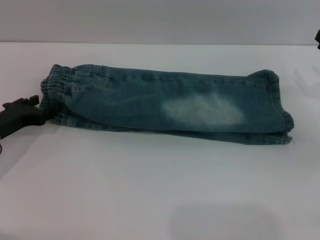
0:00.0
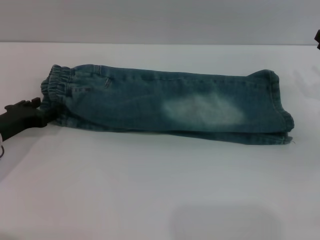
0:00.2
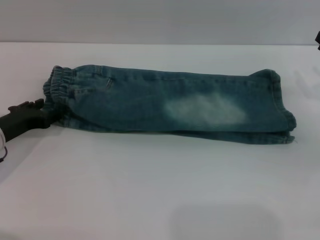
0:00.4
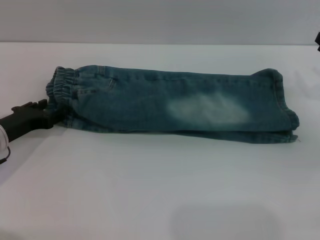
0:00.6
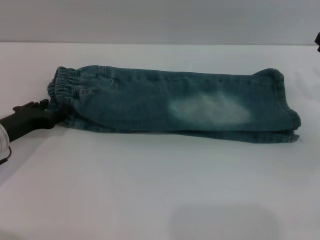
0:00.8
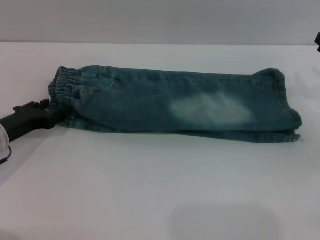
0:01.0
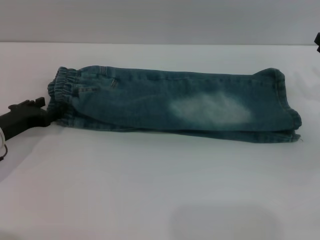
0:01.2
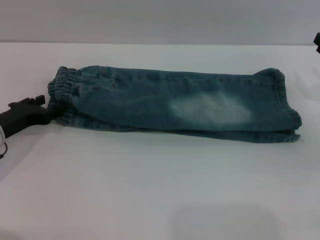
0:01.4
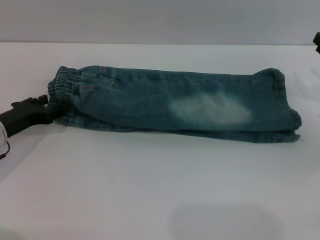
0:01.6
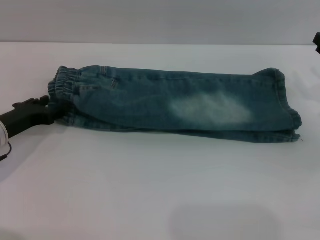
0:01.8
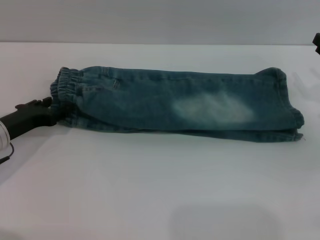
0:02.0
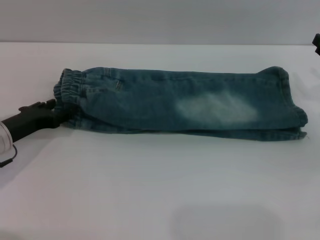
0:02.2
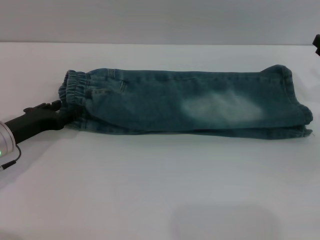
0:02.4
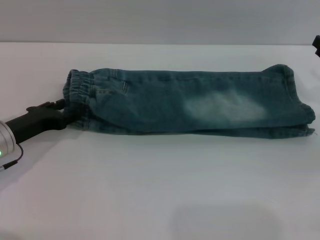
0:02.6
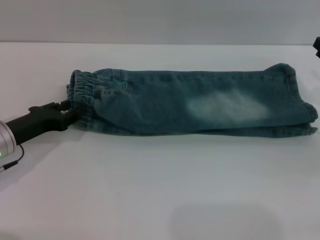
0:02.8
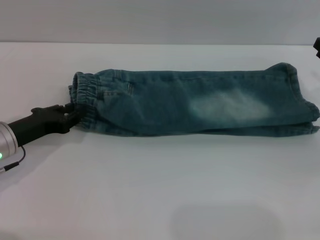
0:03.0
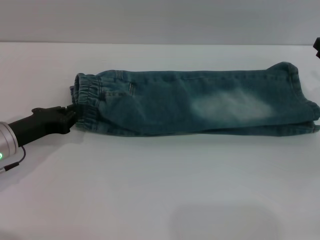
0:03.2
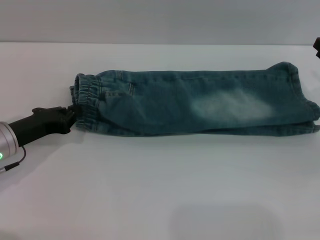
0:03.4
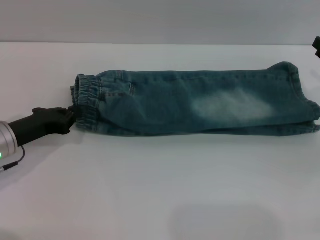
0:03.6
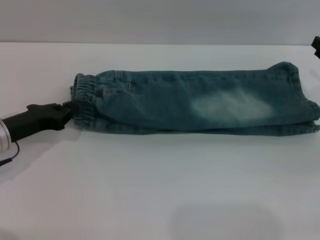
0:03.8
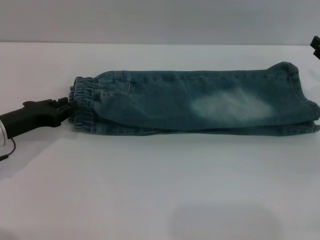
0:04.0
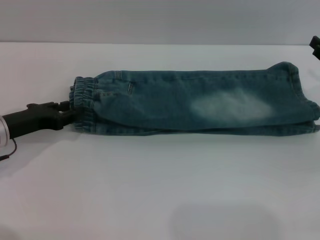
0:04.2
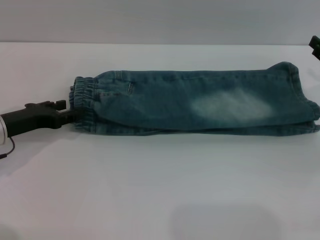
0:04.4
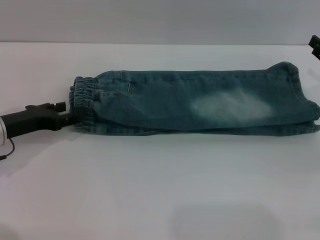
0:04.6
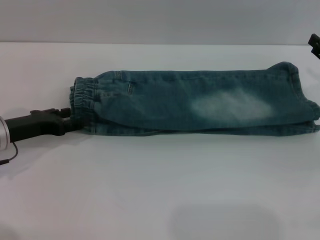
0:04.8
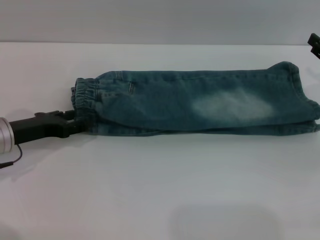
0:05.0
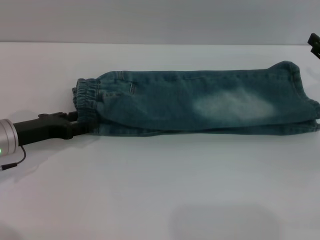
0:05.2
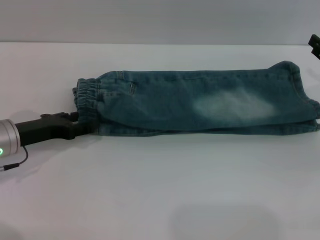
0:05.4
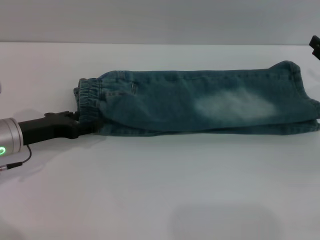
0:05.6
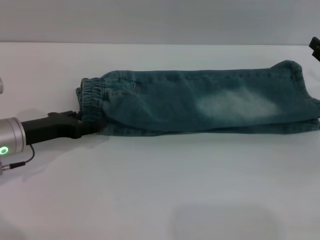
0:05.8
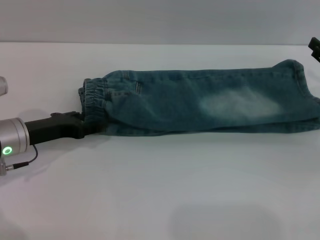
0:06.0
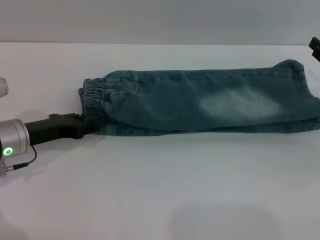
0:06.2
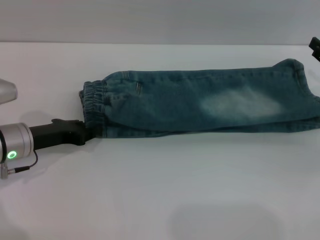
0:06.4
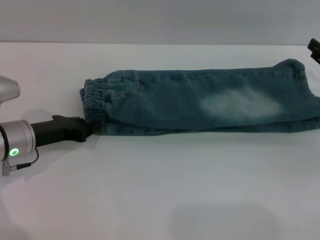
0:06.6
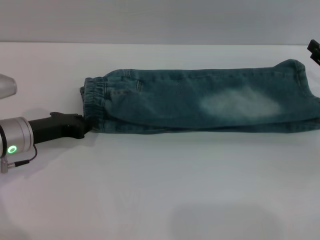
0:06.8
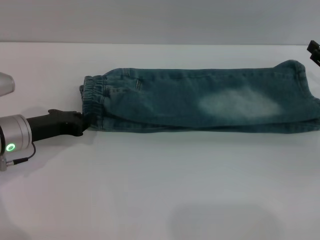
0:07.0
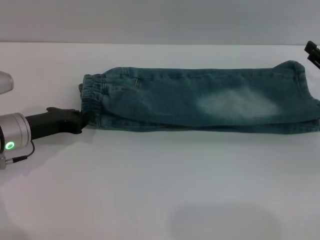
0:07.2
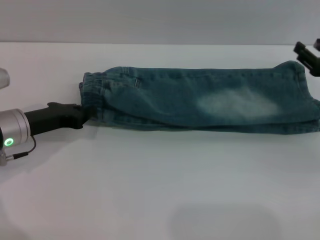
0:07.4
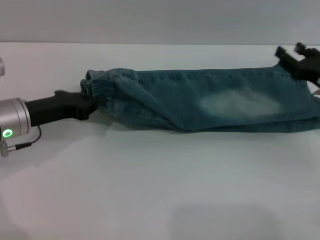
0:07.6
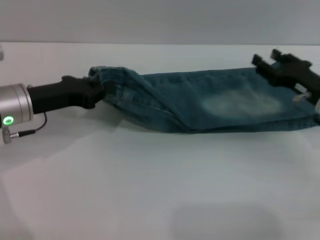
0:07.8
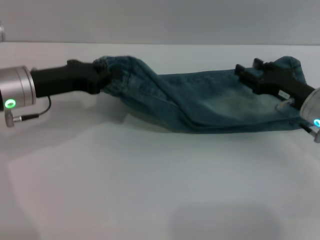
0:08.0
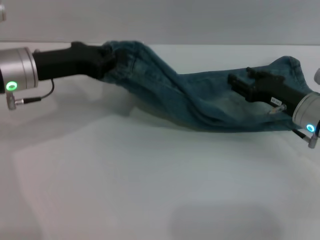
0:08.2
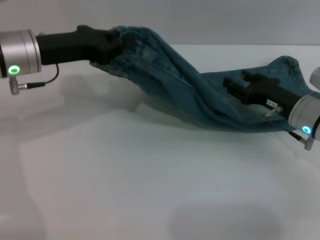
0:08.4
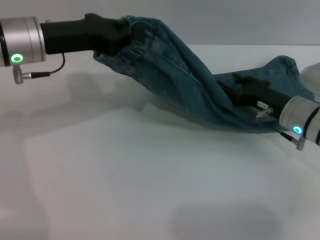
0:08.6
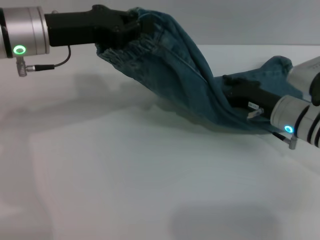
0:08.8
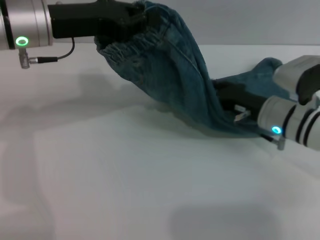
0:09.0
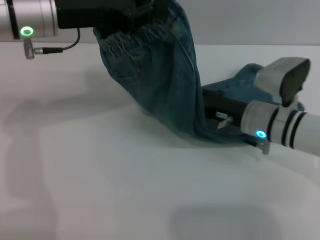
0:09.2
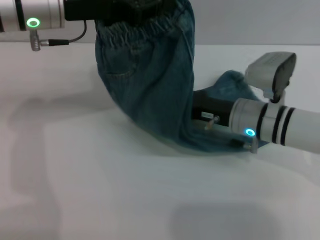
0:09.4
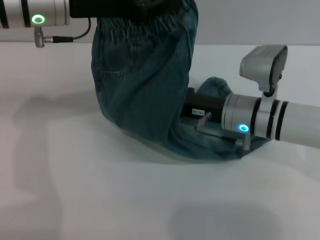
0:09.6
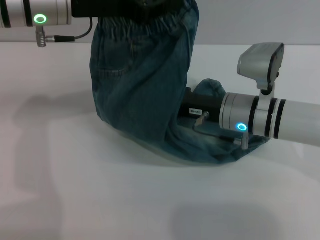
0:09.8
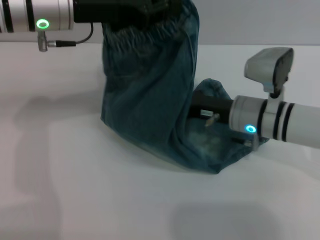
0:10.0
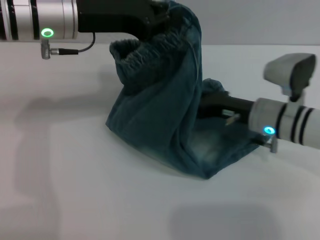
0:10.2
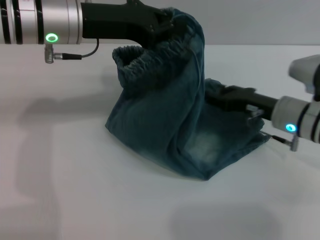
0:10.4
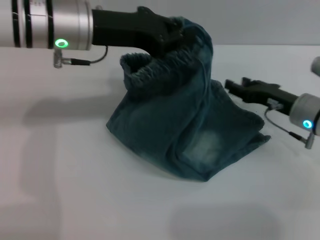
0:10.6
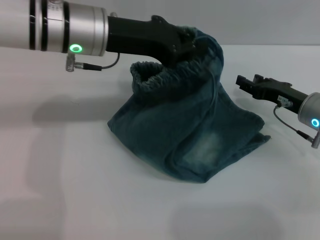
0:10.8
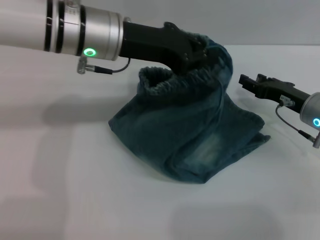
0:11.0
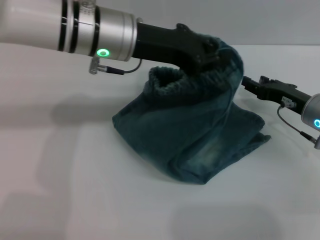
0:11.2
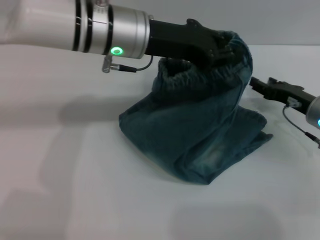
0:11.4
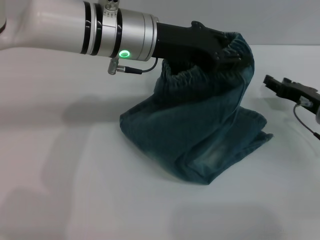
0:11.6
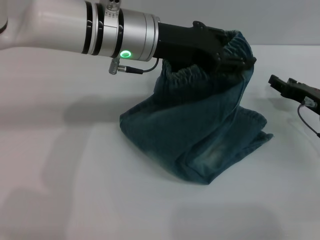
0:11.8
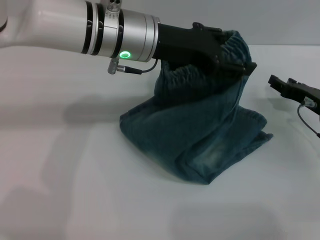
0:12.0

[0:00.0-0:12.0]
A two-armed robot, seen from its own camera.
0:00.0 to 0:01.6: The two grippers keep their place.
0:01.6 to 0:03.0: The grippers make only small movements.
0:03.0 to 0:04.4: The left gripper closes, then reopens.
0:04.4 to 0:06.0: The grippers make only small movements.
0:06.0 to 0:07.6: The left gripper closes.
0:07.6 to 0:09.0: The right gripper shifts about 10 cm to the left. The left gripper heads upward and to the right, covering about 15 cm.
0:09.0 to 0:10.4: The right gripper reaches roughly 5 cm to the left, then returns.
0:10.4 to 0:12.0: The two grippers go approximately 10 cm to the right. The left gripper opens.

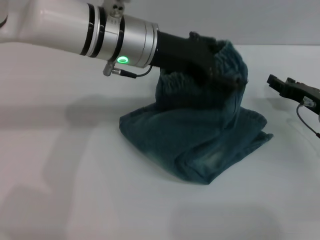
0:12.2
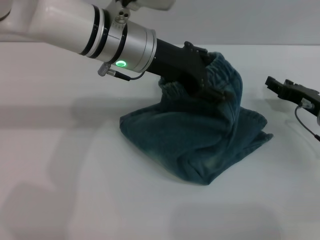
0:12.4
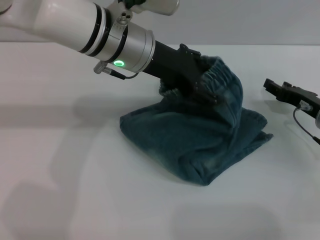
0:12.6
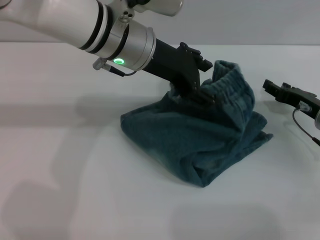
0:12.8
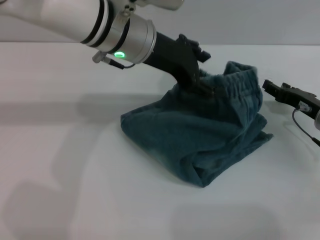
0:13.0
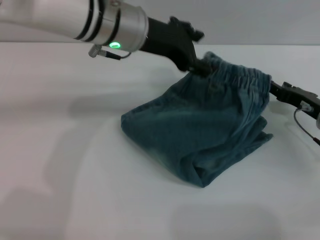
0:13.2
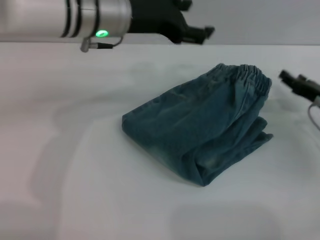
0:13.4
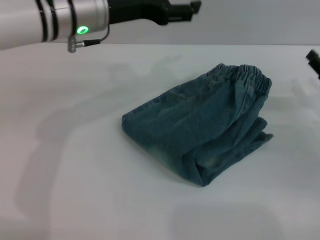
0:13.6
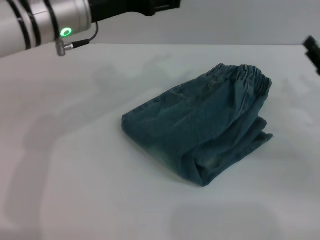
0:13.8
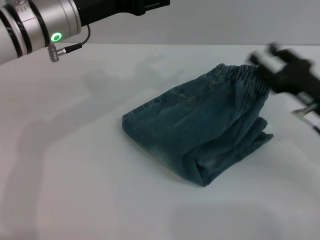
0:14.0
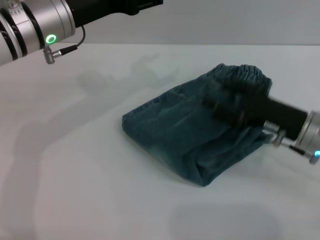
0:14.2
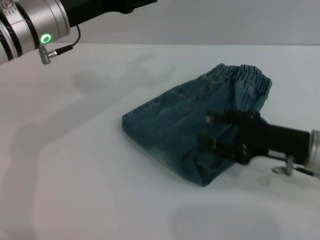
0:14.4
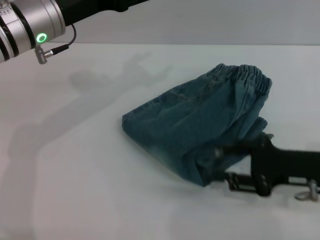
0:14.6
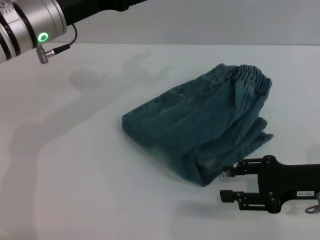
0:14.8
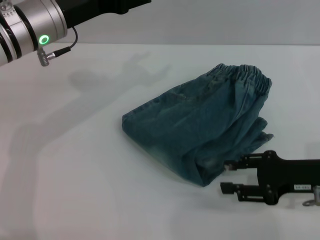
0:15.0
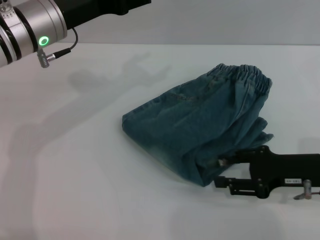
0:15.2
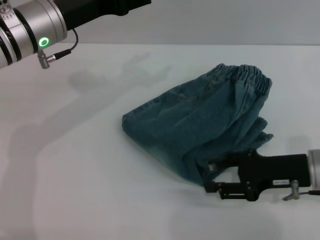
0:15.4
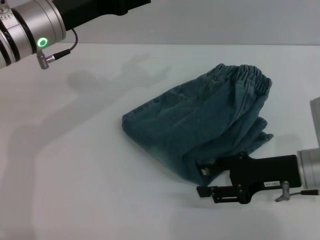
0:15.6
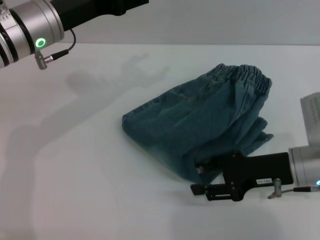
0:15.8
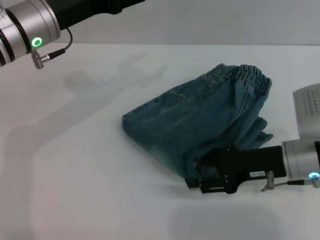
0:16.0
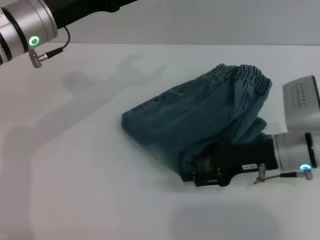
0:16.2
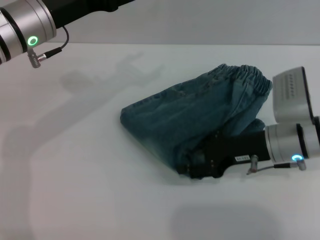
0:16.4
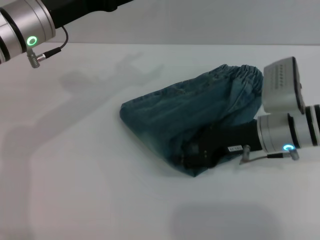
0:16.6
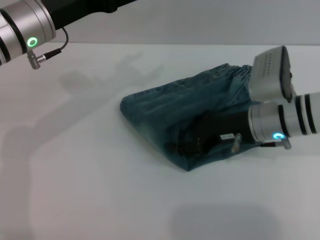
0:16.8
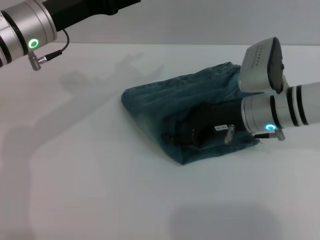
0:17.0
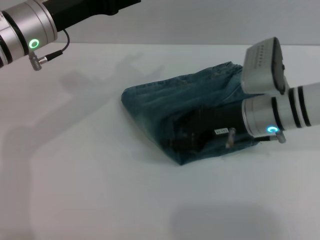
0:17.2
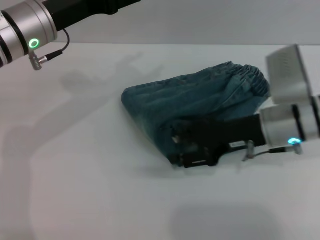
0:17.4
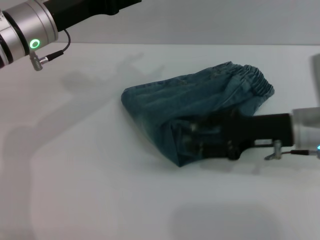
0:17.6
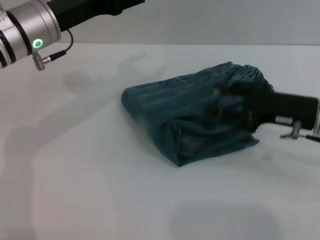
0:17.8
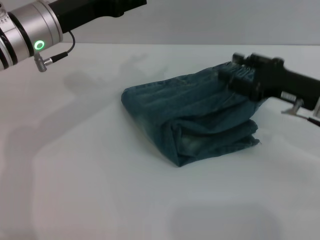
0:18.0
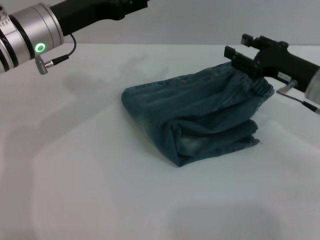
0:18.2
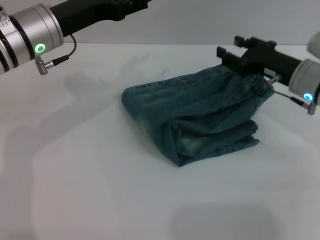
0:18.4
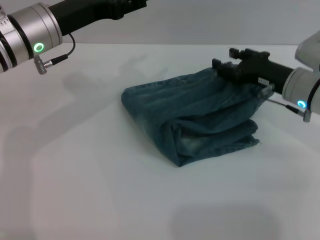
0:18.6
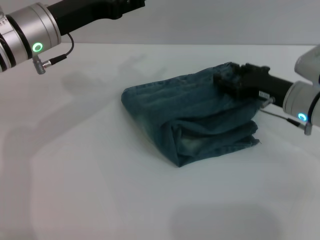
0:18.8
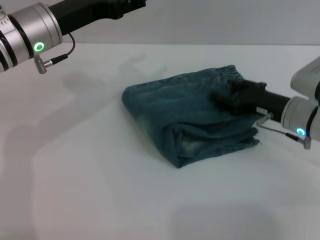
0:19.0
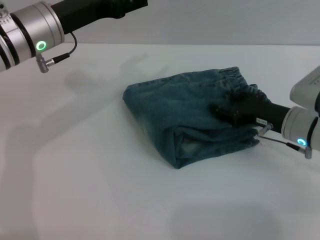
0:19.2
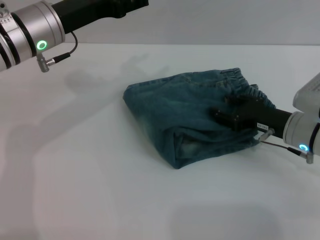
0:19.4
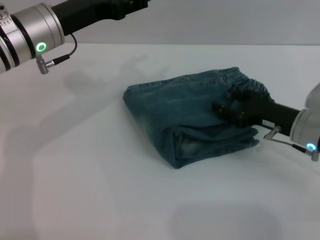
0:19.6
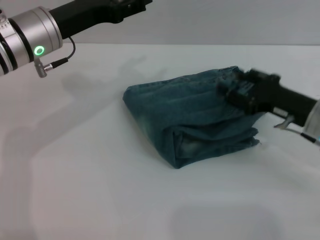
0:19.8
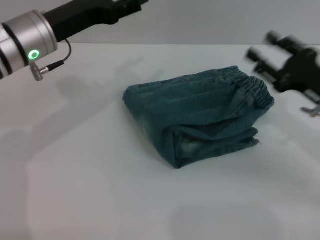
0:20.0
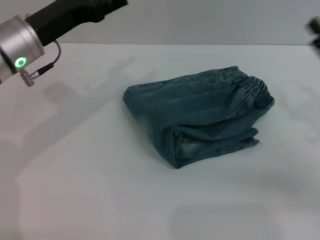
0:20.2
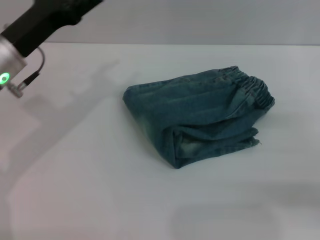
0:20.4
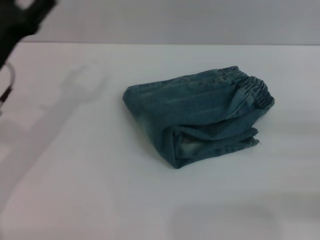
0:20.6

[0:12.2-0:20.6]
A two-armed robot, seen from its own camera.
Step, 0:13.4 to 0:17.6: Place the folded trousers onto the center area with the right grippers.
0:12.2 to 0:13.6: The left gripper heads to the left, covering roughly 5 cm.
0:13.6 to 0:15.0: The right gripper is displaced backward and to the left by about 10 cm; the left gripper heads to the left, covering some 5 cm.
0:15.0 to 0:16.4: The right gripper shifts about 10 cm to the left and forward.
0:16.4 to 0:17.8: The right gripper is displaced to the right by about 5 cm.
0:17.8 to 0:19.2: The right gripper travels downward by some 5 cm.
0:19.2 to 0:20.6: The left gripper travels backward, to the left and downward by roughly 10 cm. Meanwhile the right gripper is displaced to the right and backward by some 20 cm.

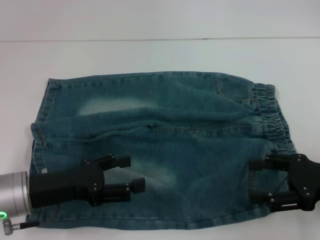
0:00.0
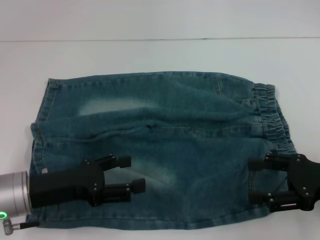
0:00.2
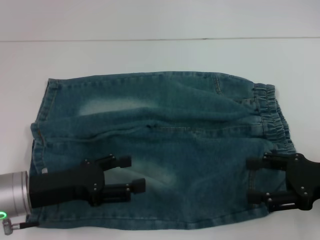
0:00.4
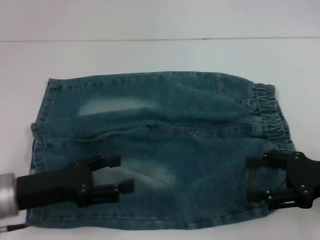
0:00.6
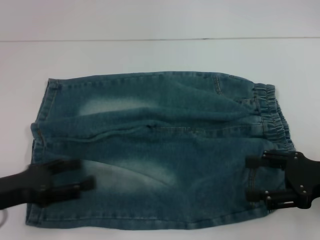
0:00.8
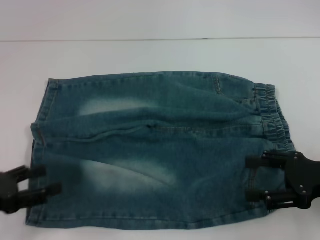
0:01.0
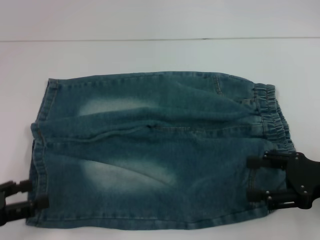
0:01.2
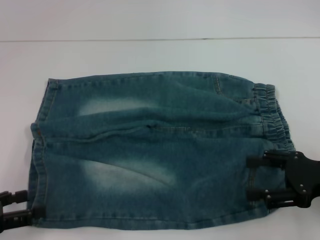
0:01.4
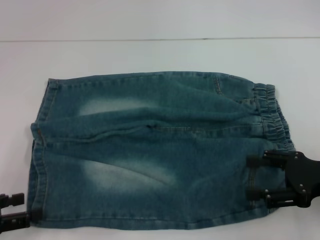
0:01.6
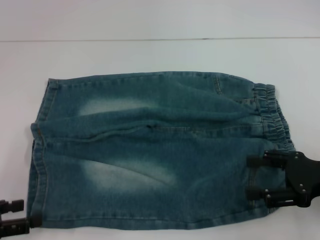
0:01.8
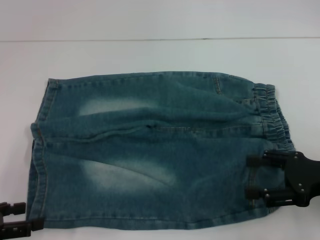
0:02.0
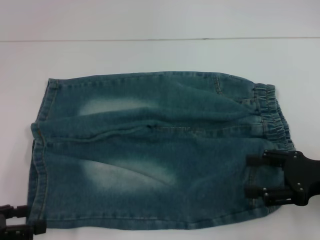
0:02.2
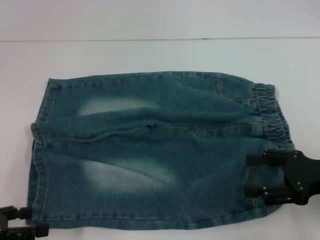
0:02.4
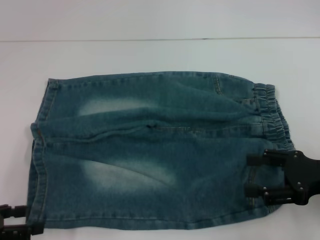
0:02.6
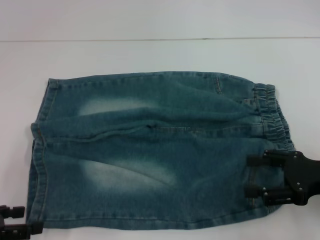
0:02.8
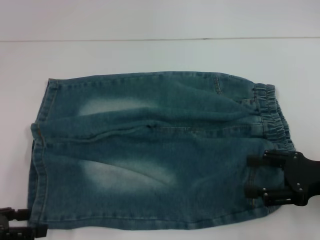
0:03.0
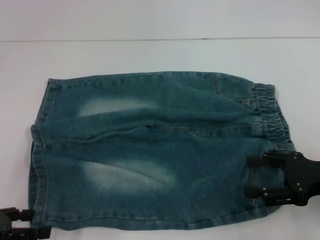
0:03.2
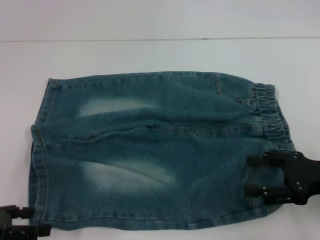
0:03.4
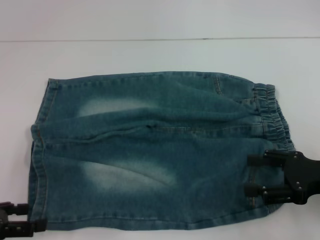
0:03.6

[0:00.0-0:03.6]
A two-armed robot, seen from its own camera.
0:00.0 to 0:01.8: The left gripper goes some 15 cm to the left and backward.
0:01.8 to 0:03.6: There are only small adjustments of the grippers.
